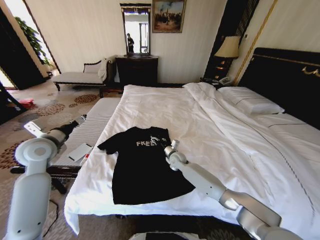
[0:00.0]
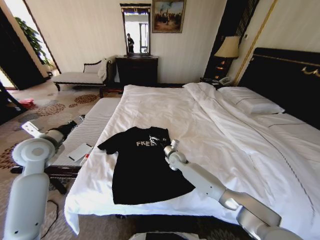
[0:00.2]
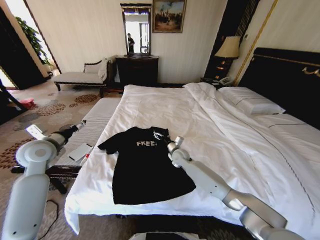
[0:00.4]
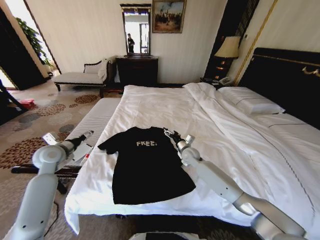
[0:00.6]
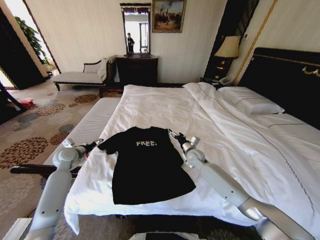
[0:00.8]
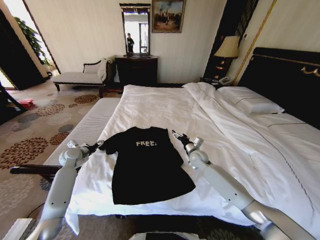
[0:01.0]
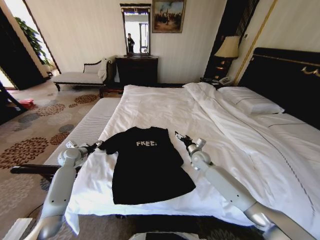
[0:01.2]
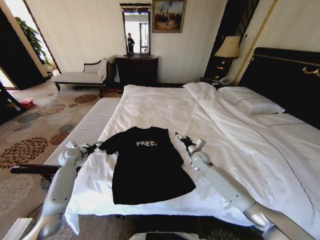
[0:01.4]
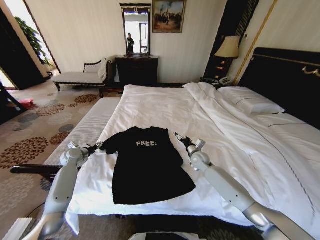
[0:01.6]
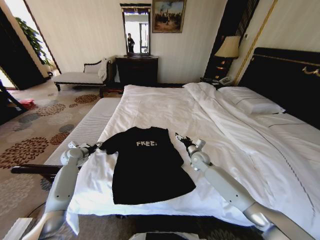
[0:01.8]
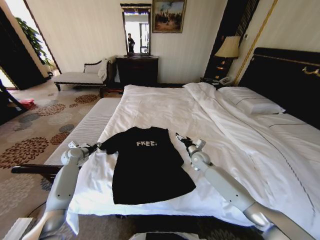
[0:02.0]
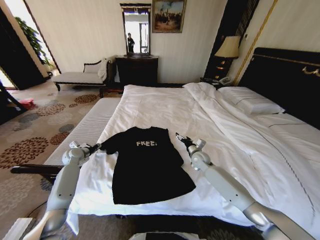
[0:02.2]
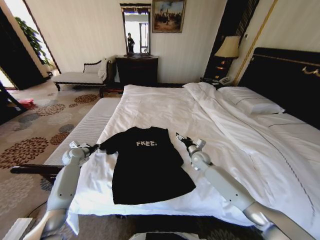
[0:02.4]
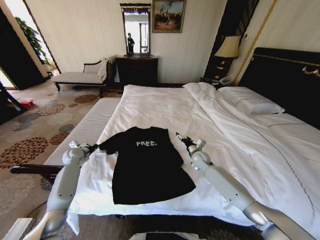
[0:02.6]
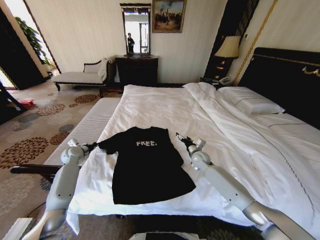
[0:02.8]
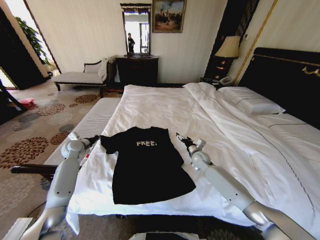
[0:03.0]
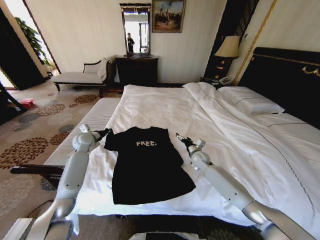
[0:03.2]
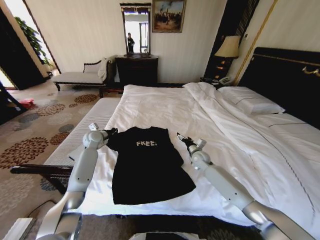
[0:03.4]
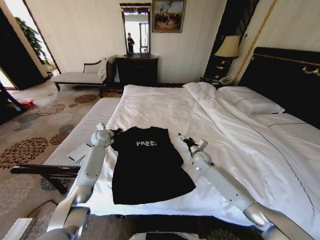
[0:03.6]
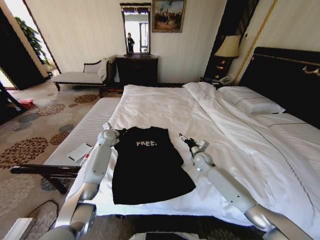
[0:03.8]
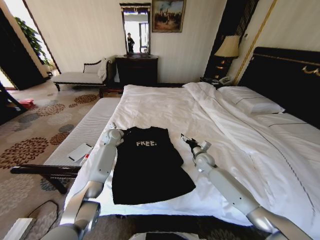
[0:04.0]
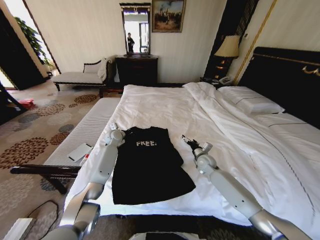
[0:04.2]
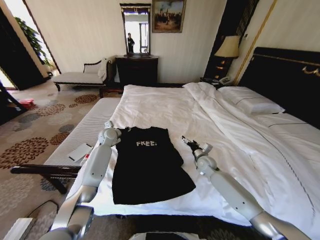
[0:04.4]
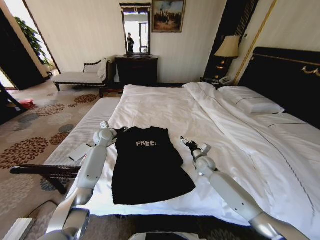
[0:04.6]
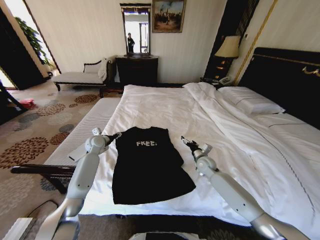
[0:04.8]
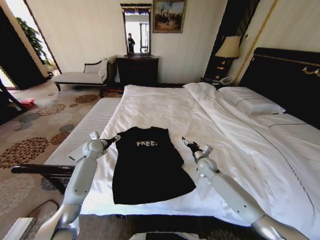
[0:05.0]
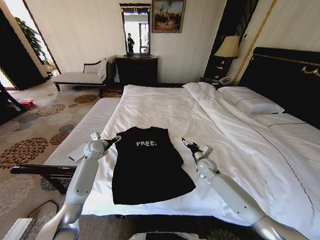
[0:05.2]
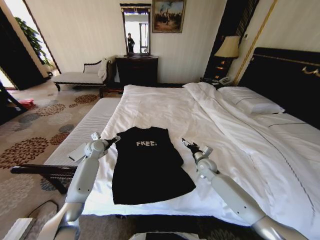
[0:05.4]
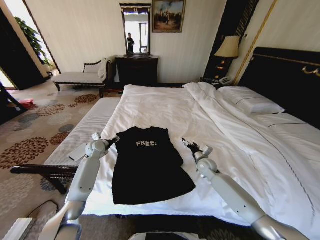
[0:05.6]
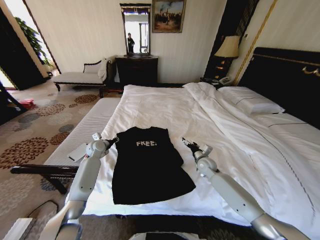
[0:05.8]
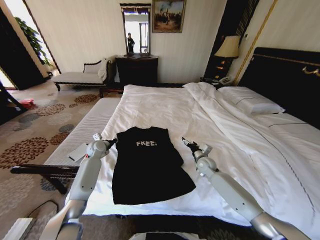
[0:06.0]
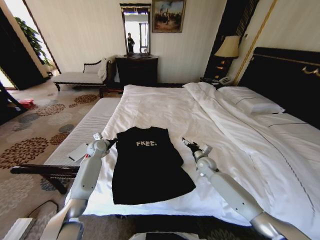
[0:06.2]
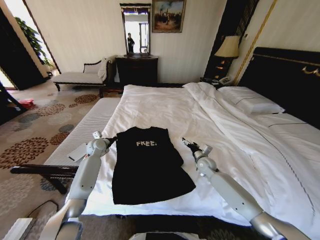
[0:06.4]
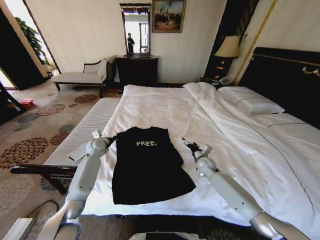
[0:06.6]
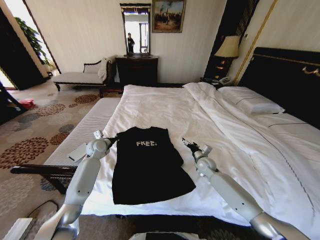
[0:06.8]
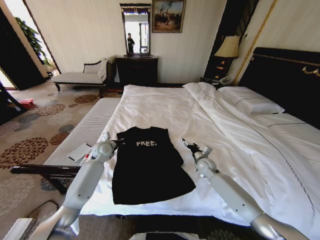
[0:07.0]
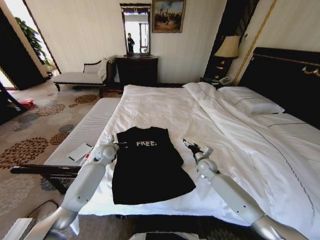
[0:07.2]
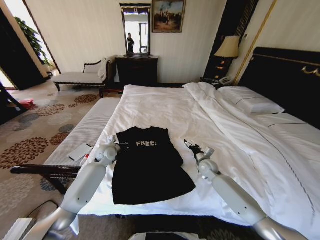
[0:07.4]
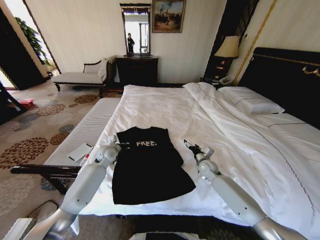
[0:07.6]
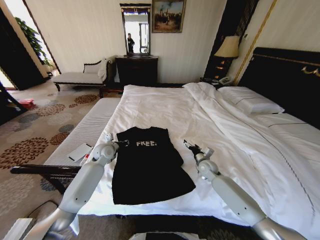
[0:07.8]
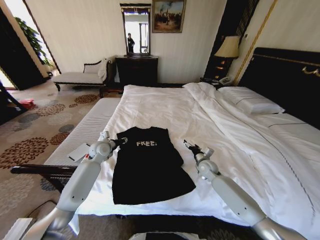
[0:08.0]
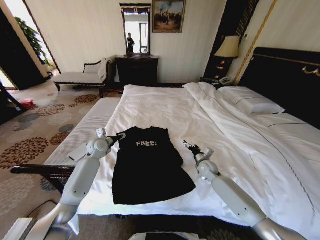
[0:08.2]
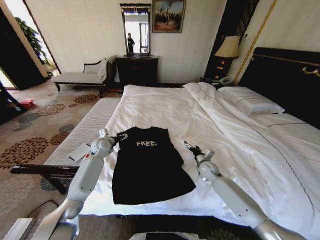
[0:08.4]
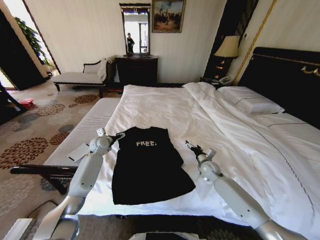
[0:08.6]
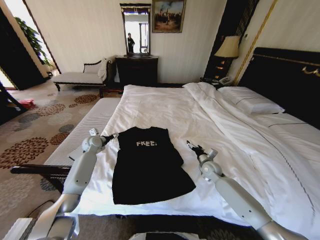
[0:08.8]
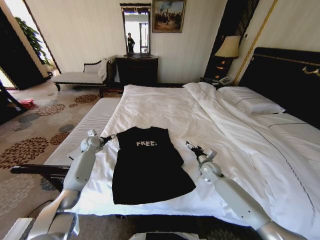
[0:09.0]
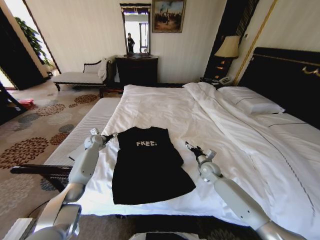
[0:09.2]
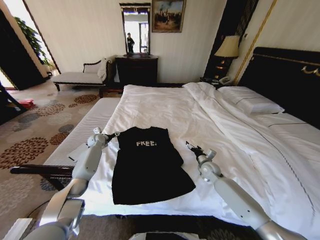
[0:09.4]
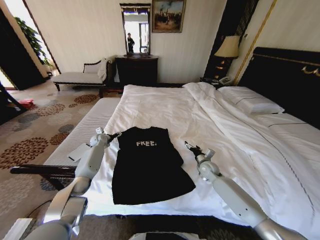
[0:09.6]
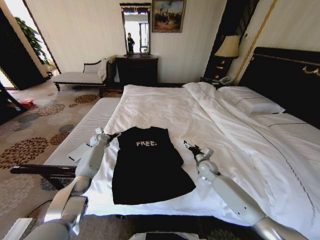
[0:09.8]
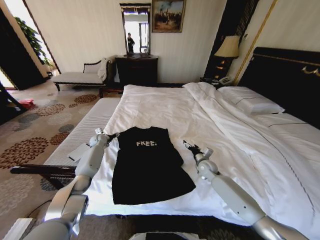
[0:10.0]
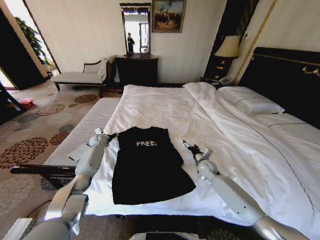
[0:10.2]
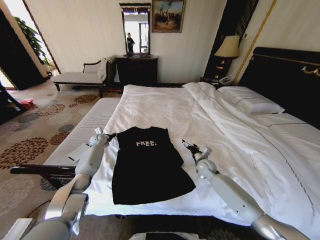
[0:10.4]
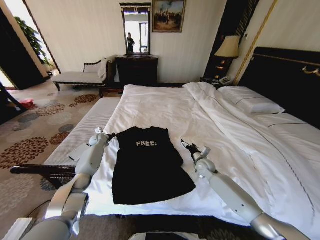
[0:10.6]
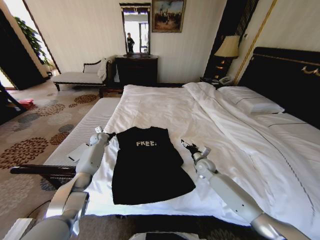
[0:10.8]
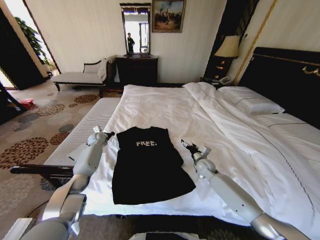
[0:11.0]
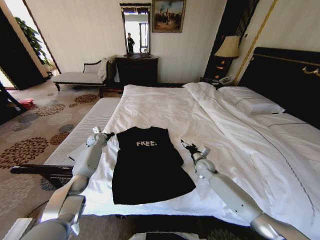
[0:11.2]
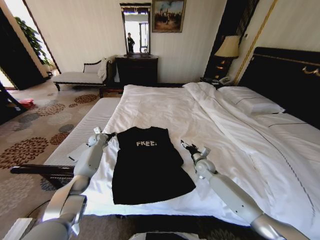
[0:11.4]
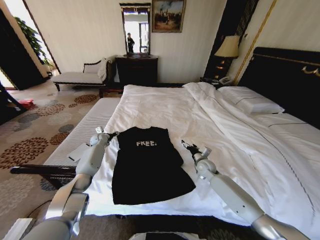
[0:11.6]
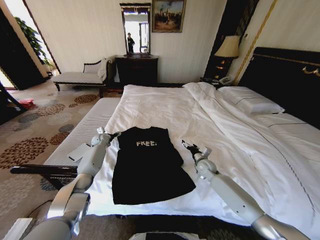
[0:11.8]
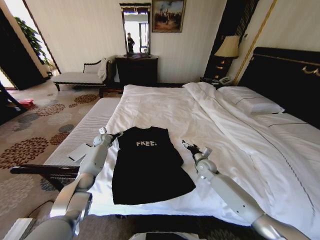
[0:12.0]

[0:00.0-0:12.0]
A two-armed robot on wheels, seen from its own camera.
Task of the whole recording: Fold the clothes on the bed.
0:00.0 to 0:01.6: The right gripper is displaced to the right by approximately 10 cm. Meanwhile the left gripper goes approximately 20 cm downward and forward.
0:01.6 to 0:03.0: The left gripper shifts approximately 5 cm upward, and closes up.
0:03.0 to 0:04.4: The left gripper goes some 15 cm to the right and forward.
0:04.4 to 0:06.0: The left gripper travels to the left and downward by some 10 cm, and opens and closes again.
0:06.0 to 0:07.6: The left gripper is displaced to the right and backward by approximately 10 cm.
0:07.6 to 0:09.0: The left gripper goes about 15 cm to the left and forward, and opens up.
0:09.0 to 0:10.4: The left gripper goes approximately 5 cm forward, and closes its fingers.
0:10.4 to 0:12.0: The left gripper opens its fingers.

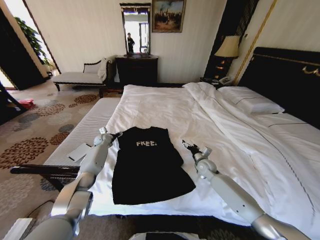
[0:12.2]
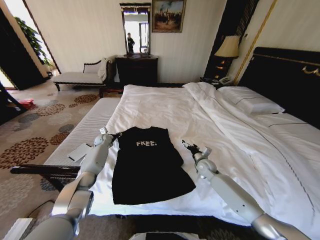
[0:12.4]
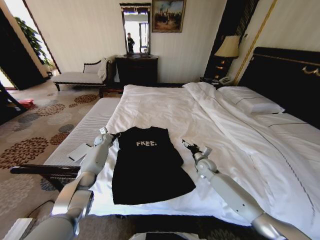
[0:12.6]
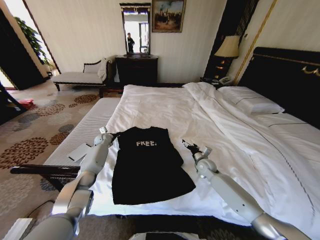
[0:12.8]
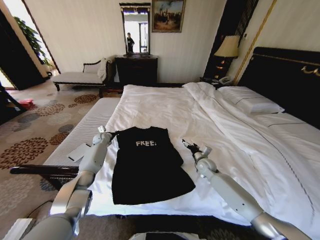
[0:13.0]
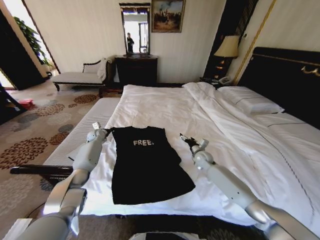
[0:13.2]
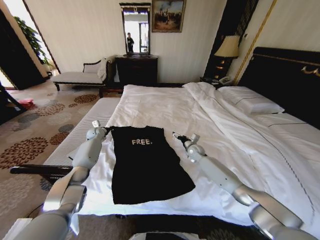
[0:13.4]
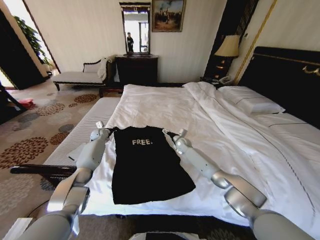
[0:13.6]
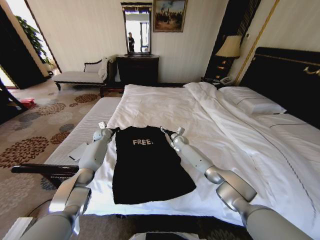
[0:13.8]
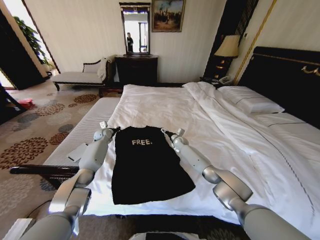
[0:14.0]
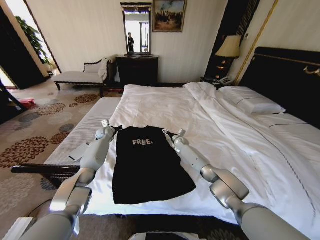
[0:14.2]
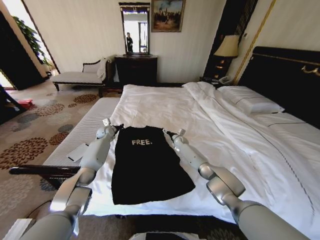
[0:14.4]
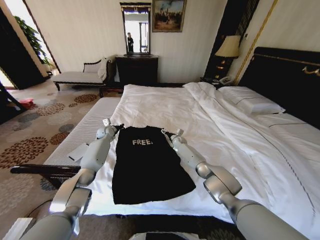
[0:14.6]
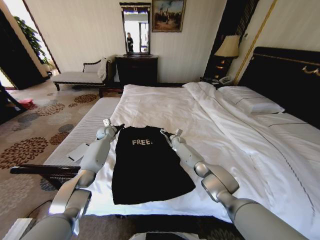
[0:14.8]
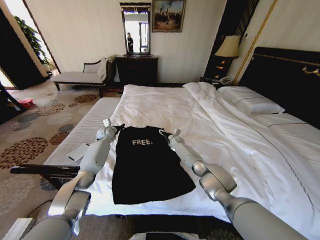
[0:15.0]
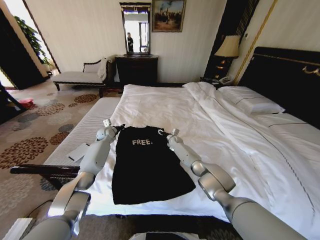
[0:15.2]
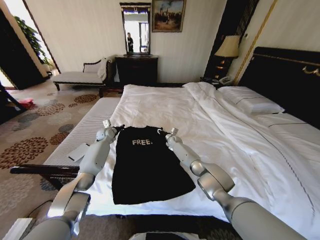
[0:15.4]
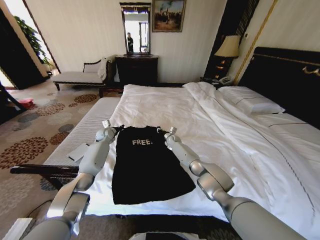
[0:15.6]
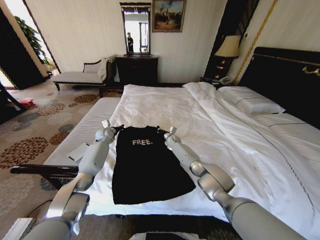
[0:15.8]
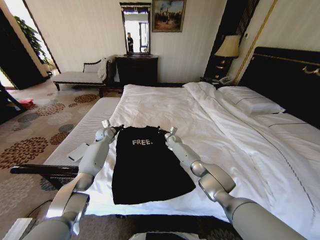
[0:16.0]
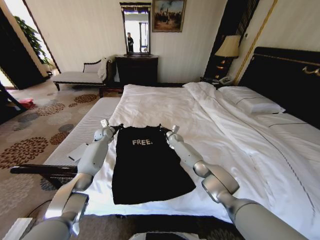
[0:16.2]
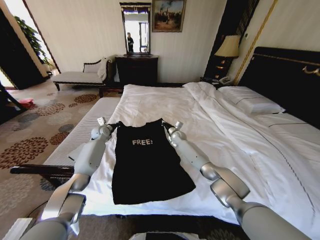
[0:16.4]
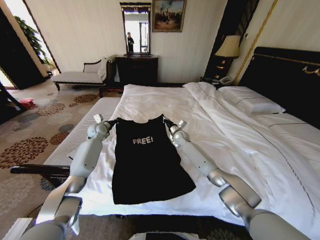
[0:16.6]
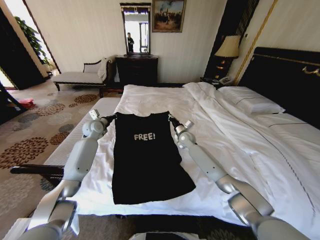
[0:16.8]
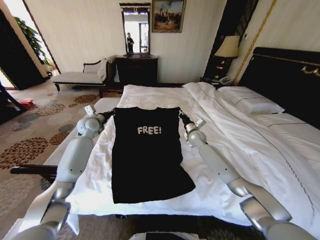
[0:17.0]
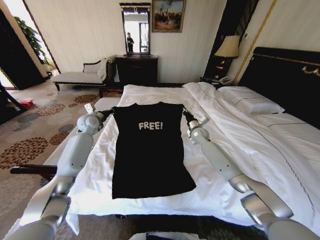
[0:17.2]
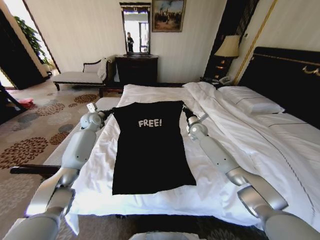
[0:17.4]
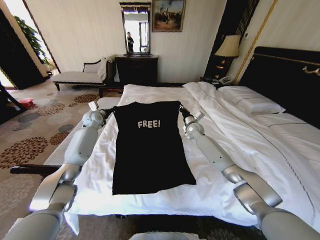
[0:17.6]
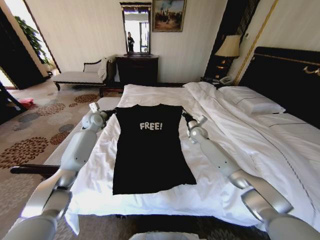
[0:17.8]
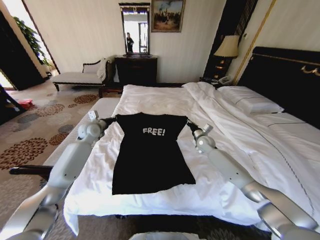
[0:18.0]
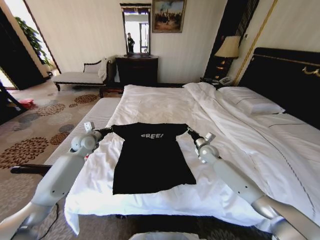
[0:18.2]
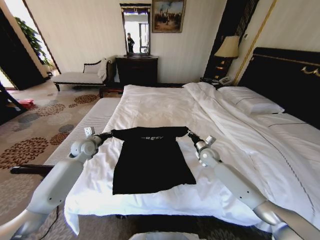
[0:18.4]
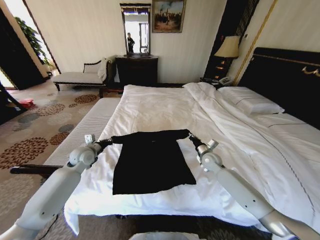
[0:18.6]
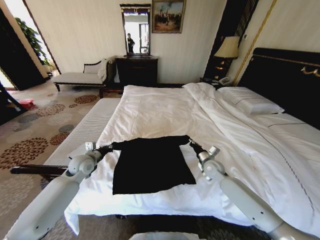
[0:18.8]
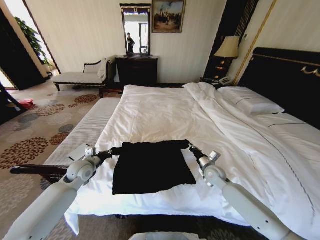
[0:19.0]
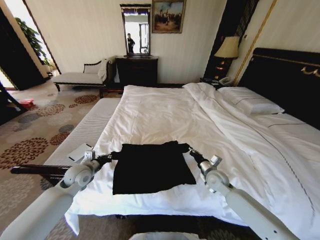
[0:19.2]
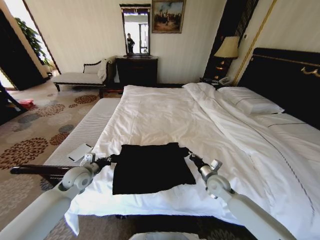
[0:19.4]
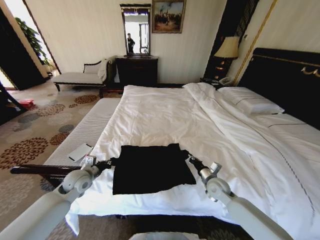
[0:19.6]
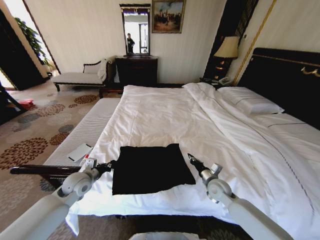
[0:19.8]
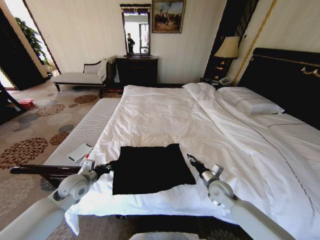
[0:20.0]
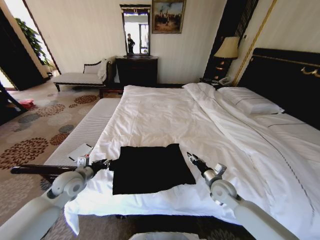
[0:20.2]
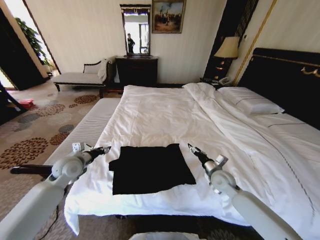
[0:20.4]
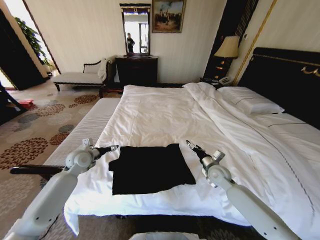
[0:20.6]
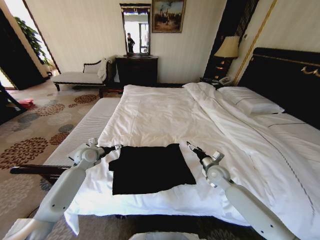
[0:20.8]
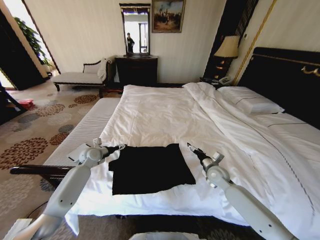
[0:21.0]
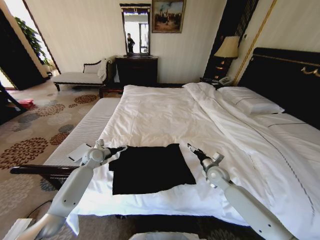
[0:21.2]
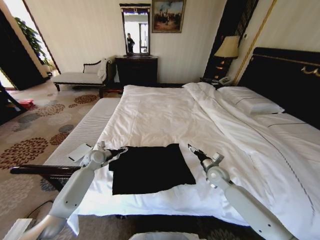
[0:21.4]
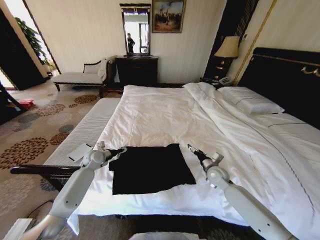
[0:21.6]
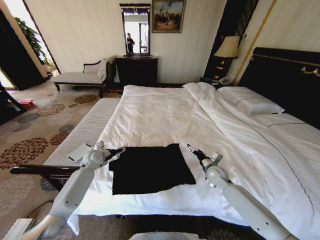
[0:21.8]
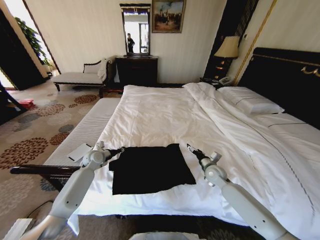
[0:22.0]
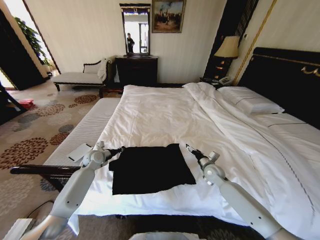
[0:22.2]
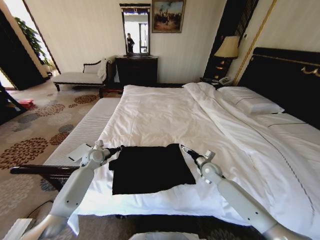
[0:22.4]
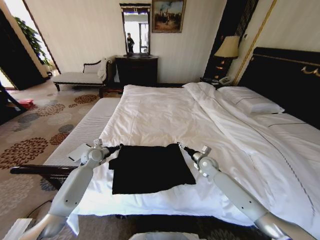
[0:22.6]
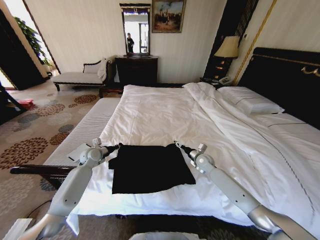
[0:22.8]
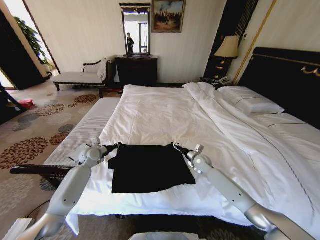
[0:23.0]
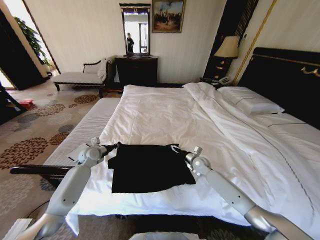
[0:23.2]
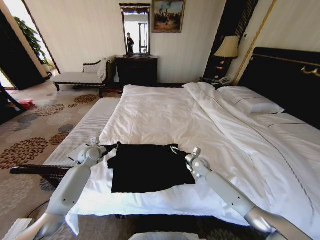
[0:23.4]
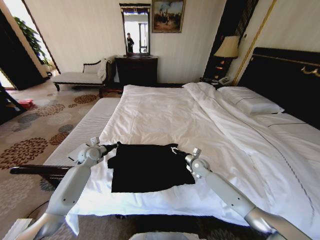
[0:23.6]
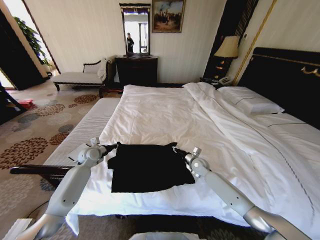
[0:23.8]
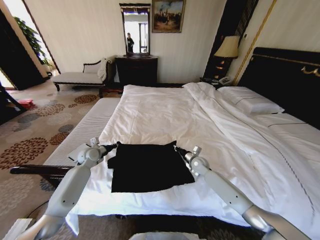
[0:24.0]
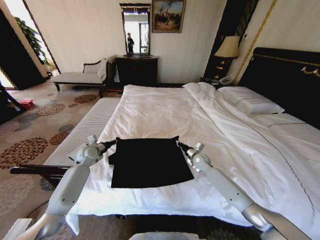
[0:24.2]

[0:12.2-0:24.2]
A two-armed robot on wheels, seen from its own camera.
Task of the whole recording: Fold the clothes on the bed.
0:12.2 to 0:13.8: The left gripper closes up. Meanwhile the right gripper heads forward and to the left, covering approximately 20 cm.
0:13.8 to 0:15.2: There are only small adjustments of the grippers.
0:15.2 to 0:16.6: The right gripper moves upward, approximately 10 cm, and closes up. The left gripper changes place by approximately 5 cm.
0:16.6 to 0:18.2: The right gripper moves to the right and backward, some 15 cm. Meanwhile the left gripper swings forward and backward, some 10 cm each way, with 2 reversals.
0:18.2 to 0:19.8: The right gripper shifts some 20 cm backward; the left gripper is displaced backward and downward by some 20 cm.
0:19.8 to 0:21.2: The right gripper goes roughly 5 cm forward, and opens. Meanwhile the left gripper goes some 15 cm forward, and opens.
0:21.2 to 0:22.6: The left gripper closes up. The right gripper travels forward by approximately 5 cm.
0:22.6 to 0:24.2: The right gripper closes.
